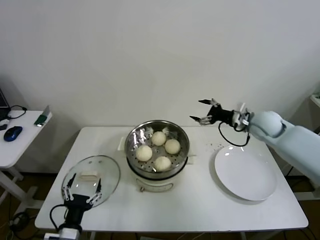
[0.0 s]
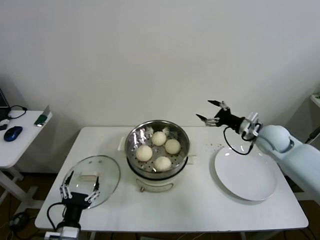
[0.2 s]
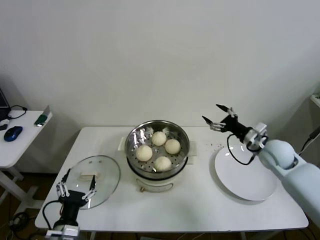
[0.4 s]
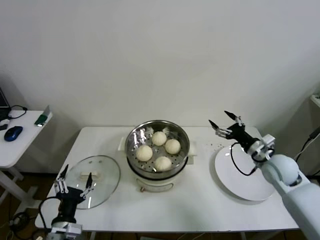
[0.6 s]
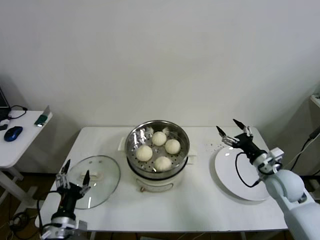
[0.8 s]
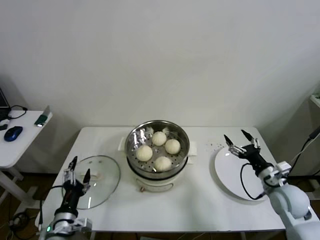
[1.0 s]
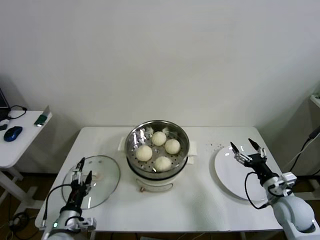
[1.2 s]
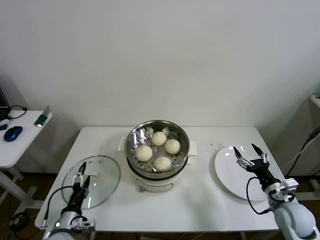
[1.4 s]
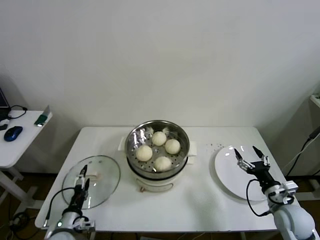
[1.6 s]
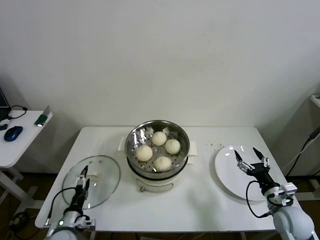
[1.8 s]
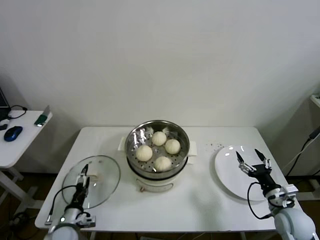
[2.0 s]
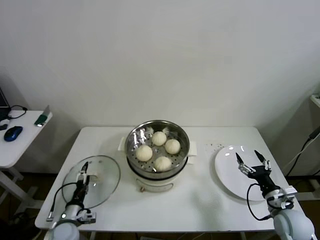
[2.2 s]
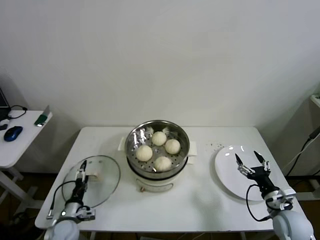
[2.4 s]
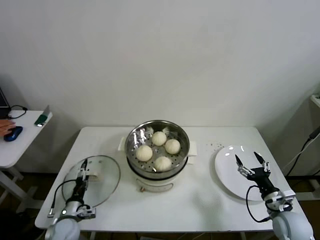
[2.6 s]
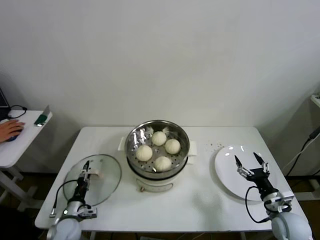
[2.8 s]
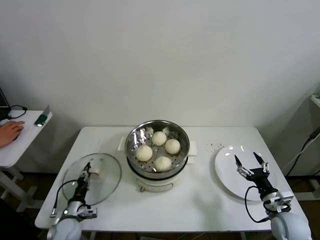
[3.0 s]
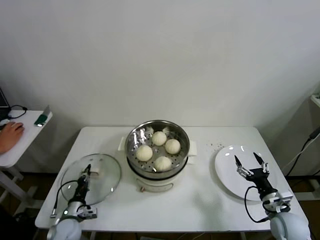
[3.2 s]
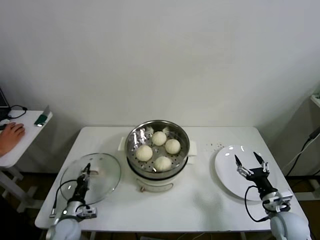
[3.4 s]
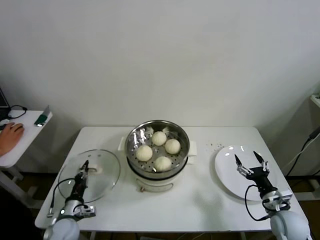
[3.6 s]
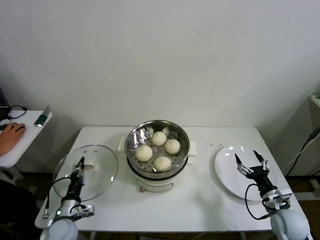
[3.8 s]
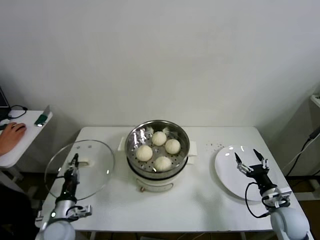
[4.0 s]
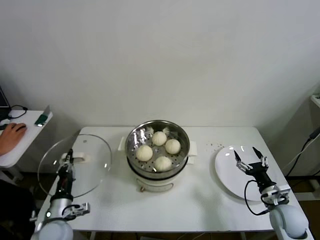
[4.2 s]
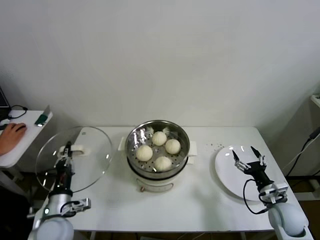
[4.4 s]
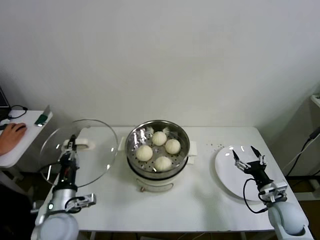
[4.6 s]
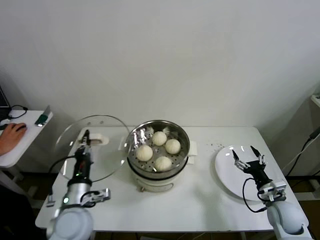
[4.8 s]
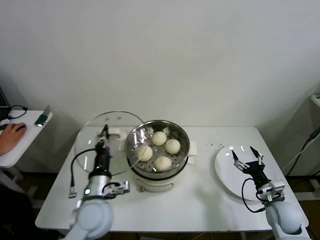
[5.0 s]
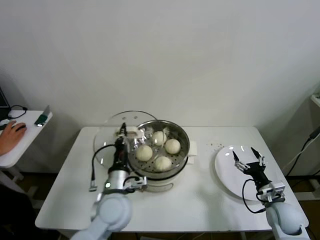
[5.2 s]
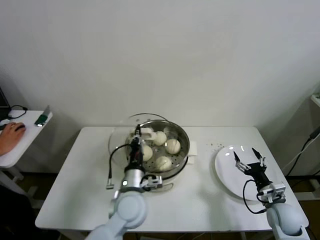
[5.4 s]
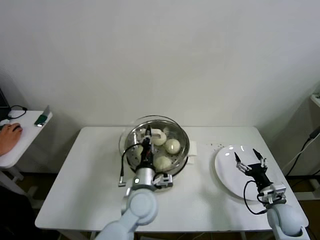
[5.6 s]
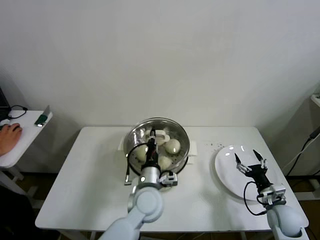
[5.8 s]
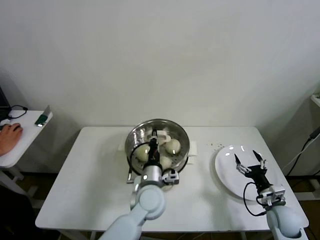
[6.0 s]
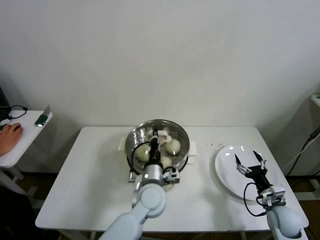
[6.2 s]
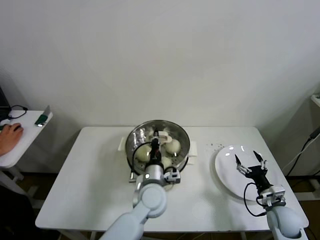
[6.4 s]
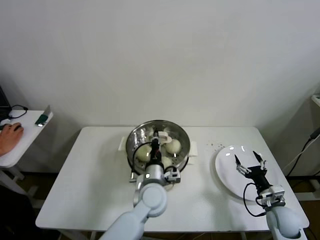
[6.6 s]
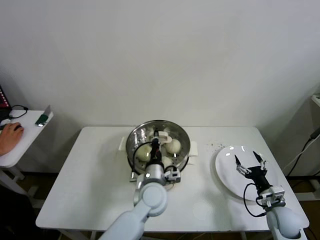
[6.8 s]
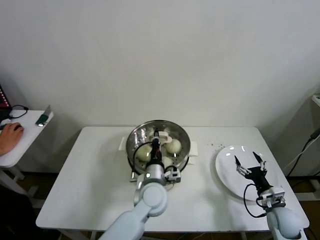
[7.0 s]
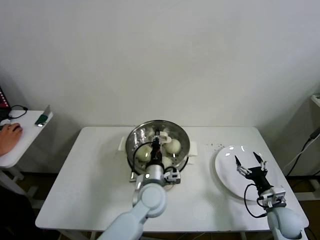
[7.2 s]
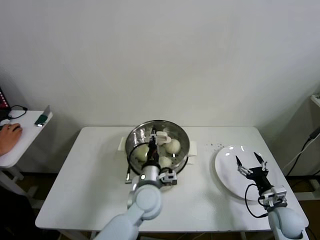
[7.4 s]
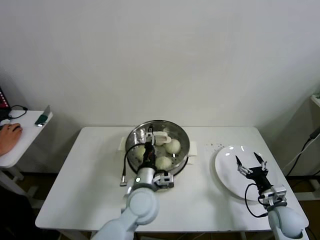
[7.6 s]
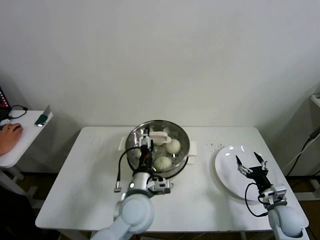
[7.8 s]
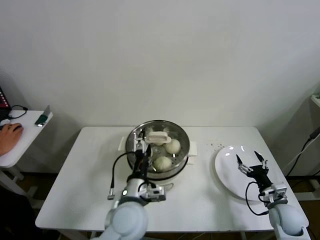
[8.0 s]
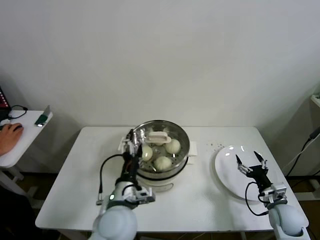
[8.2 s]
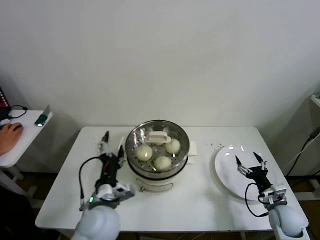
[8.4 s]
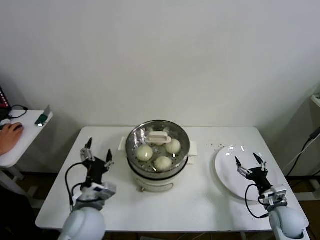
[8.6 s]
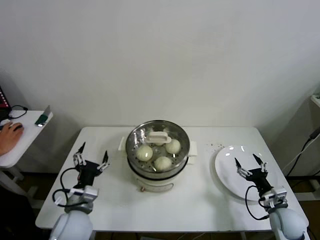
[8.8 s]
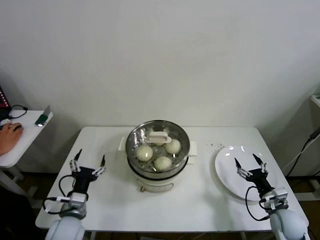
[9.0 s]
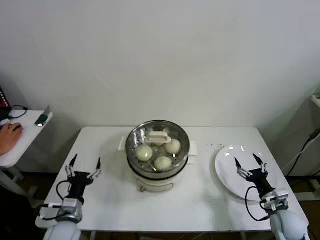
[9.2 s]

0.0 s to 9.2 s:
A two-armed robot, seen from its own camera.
Step, 0.0 to 3.2 s: Grasp the pot lid with left gripper.
Step, 3.4 to 7.8 s: Place the pot lid on the steamer with left gripper.
0.0 to 1.6 s: The left gripper moves forward and downward, some 10 cm, while the right gripper travels backward and downward by some 30 cm.
1.6 to 3.0 s: The left gripper goes about 10 cm downward and forward, and closes.
3.0 to 4.6 s: The left gripper shifts roughly 20 cm upward, and closes its fingers.
4.6 to 6.2 s: The left gripper heads to the right, covering some 25 cm.
6.2 to 7.6 s: The left gripper opens its fingers.
7.6 to 9.2 s: The left gripper goes approximately 25 cm to the left, and opens.

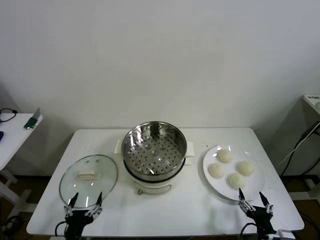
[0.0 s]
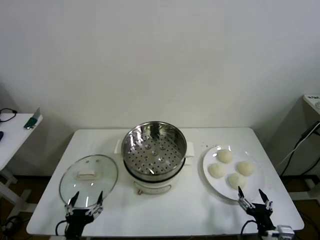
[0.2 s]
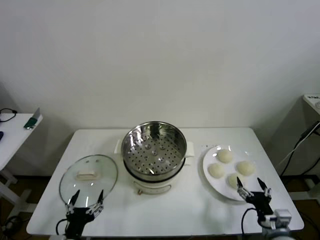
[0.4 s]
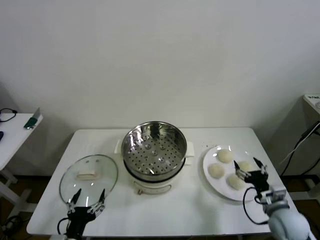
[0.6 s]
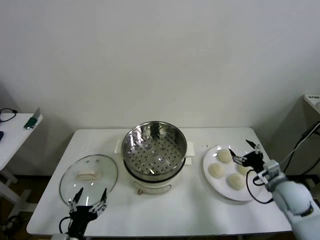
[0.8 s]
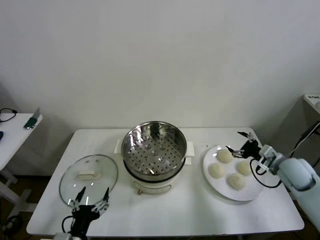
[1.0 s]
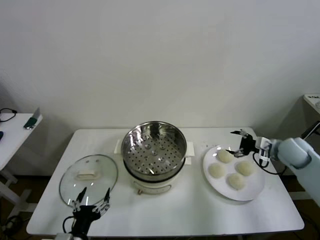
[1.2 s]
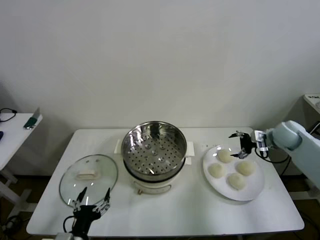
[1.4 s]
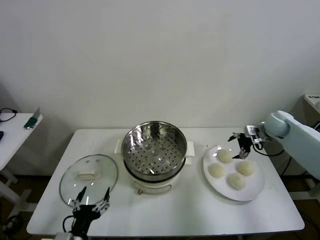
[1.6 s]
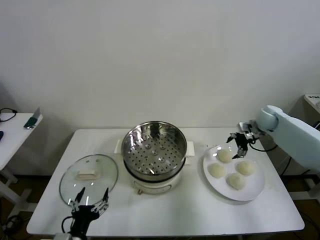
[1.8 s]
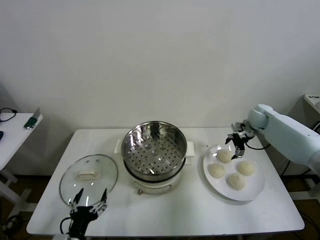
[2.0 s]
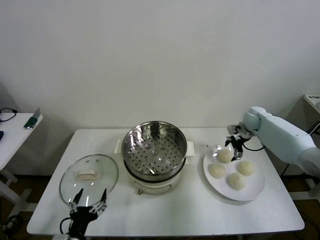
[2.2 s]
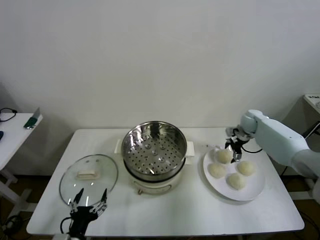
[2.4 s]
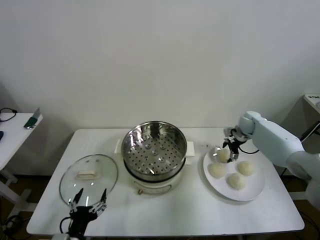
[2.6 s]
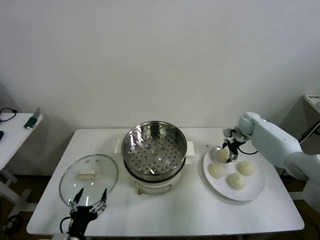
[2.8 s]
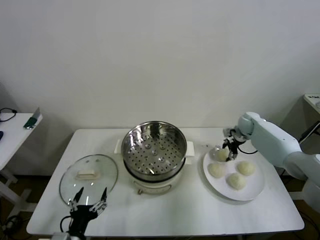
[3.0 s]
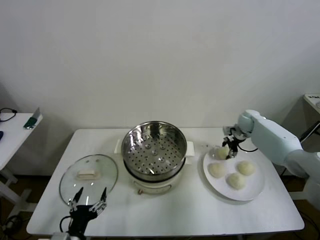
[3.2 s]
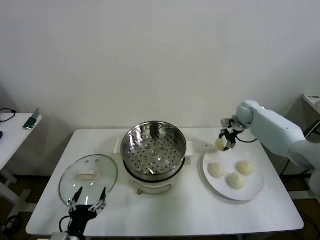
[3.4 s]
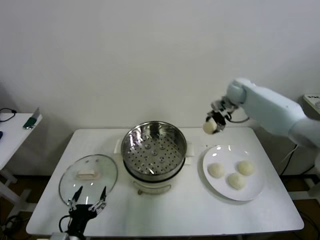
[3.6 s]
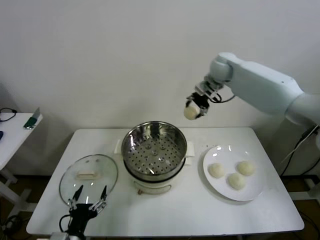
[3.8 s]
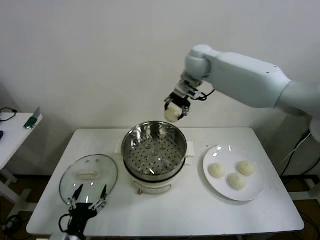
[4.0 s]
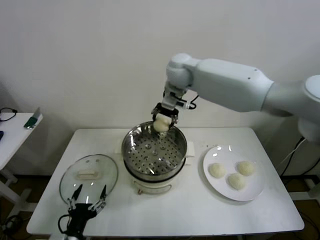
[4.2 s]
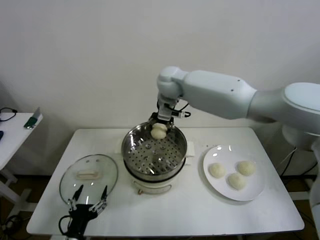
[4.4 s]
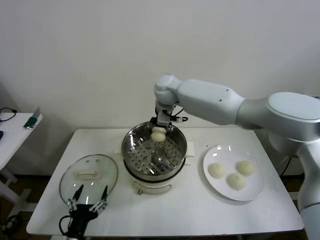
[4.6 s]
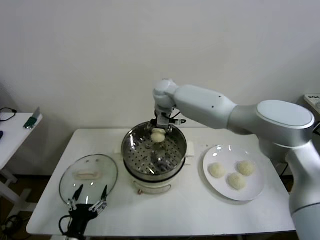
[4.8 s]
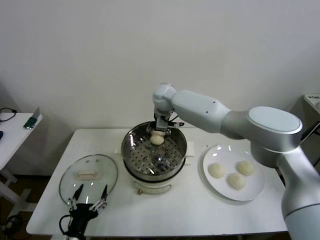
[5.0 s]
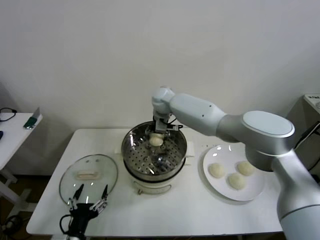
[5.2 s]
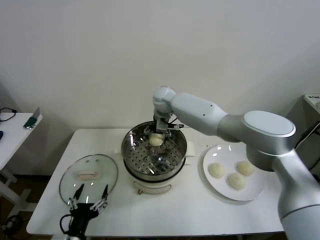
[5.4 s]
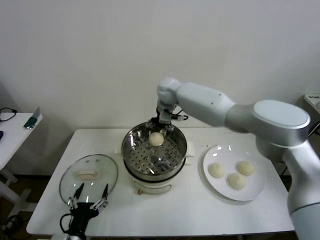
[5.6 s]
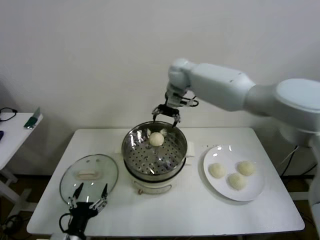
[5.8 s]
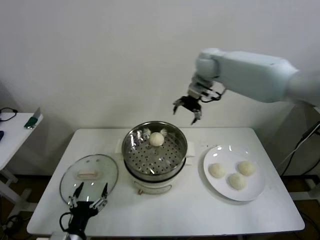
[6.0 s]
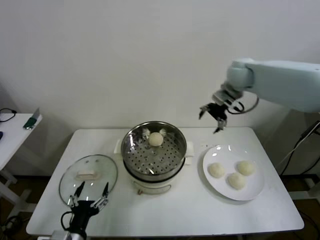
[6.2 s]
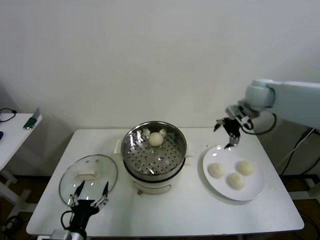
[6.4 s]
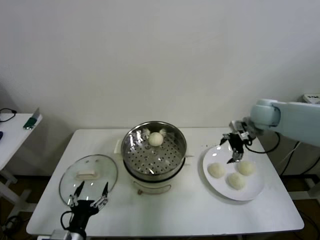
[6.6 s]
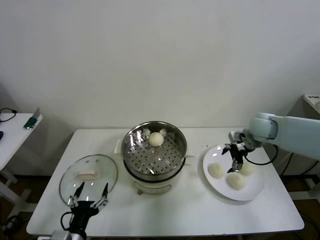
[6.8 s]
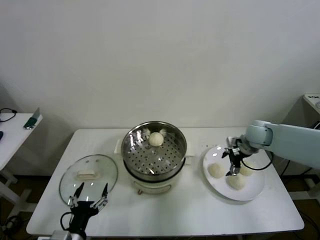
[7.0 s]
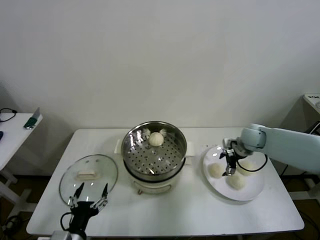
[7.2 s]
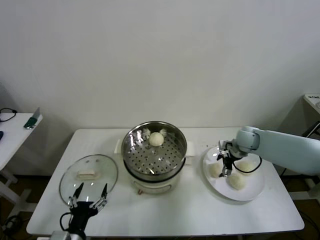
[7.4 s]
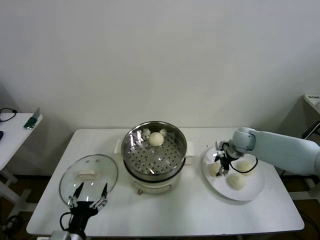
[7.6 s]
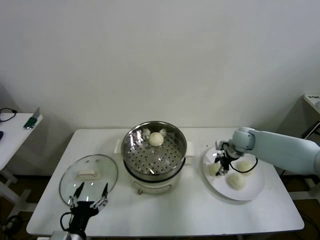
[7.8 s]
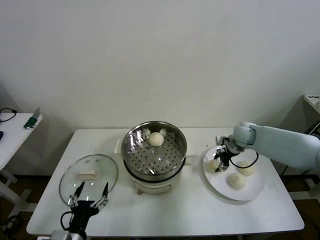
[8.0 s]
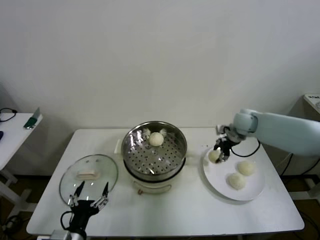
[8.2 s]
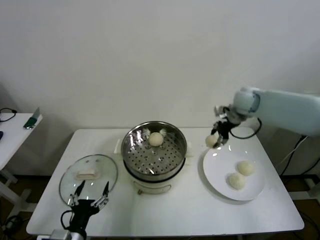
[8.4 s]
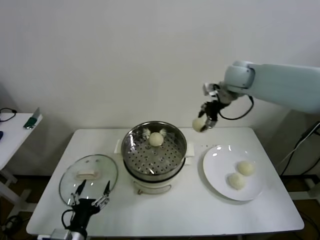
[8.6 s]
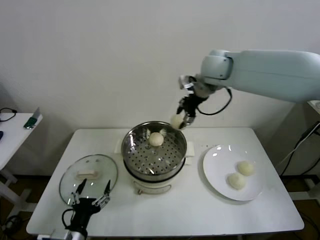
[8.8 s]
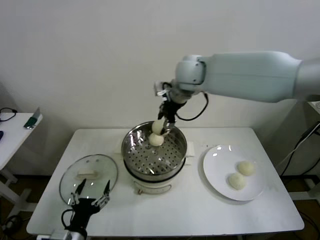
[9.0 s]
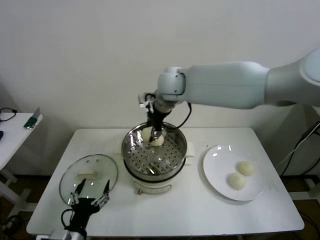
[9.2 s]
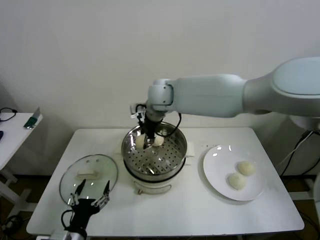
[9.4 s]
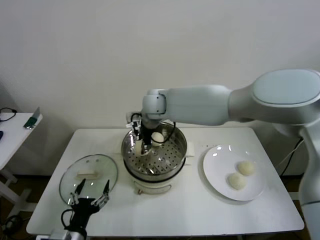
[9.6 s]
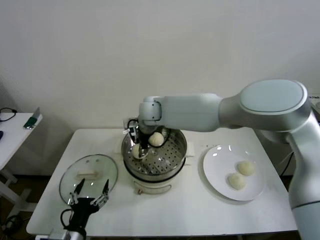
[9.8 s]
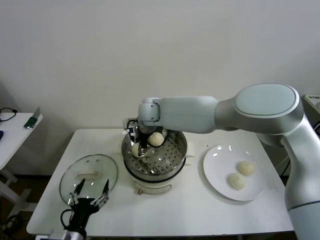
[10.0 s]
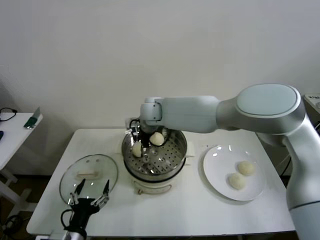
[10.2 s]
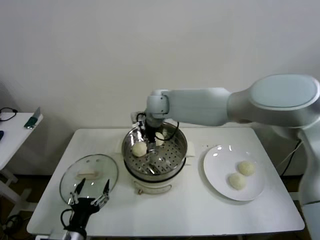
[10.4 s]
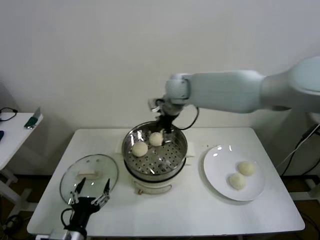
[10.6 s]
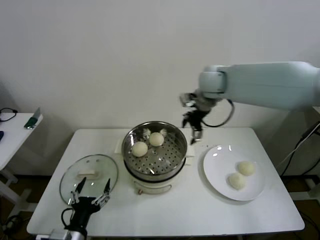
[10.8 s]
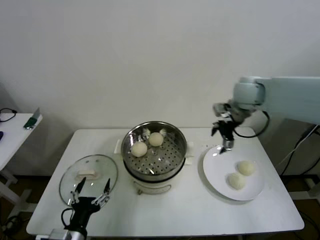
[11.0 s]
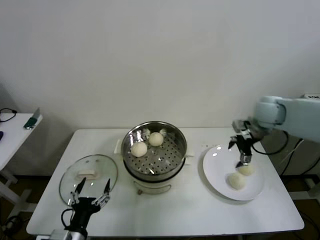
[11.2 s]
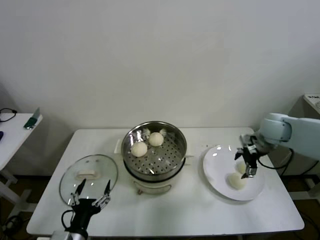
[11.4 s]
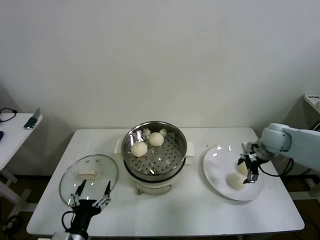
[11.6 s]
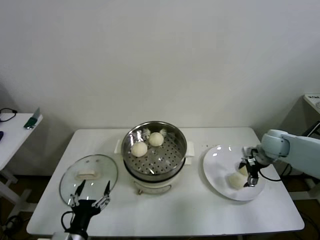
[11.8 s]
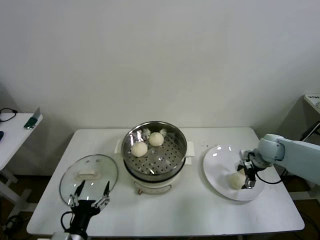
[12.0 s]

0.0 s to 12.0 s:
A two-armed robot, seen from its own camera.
Step, 0.0 to 3.0 s: Grasp the baozi in the plate with right gripper.
Step, 3.2 to 5.2 s: Place the baozi on the steamer with right gripper.
Step, 5.4 to 7.6 s: Grasp the baozi in the plate with right gripper.
Step, 7.8 to 10.2 s: Place the baozi on the steamer with right gripper.
1.6 to 3.0 s: The right gripper moves downward and forward, some 10 cm, and closes up.
3.0 to 4.4 s: The right gripper goes some 40 cm to the left and upward.
4.4 to 6.0 s: The right gripper shifts roughly 20 cm to the right, and opens up.
6.0 to 7.6 s: The right gripper is displaced downward and to the right by some 30 cm, and closes.
7.6 to 9.0 s: The right gripper goes about 40 cm upward and to the left.
9.0 to 10.4 s: The right gripper heads downward, covering roughly 10 cm, and opens its fingers.
10.4 to 12.0 s: The right gripper heads to the right and downward, covering some 40 cm.

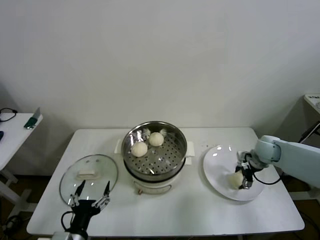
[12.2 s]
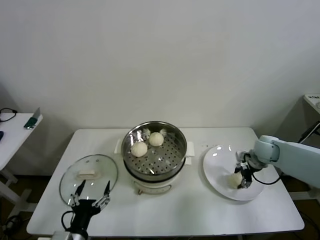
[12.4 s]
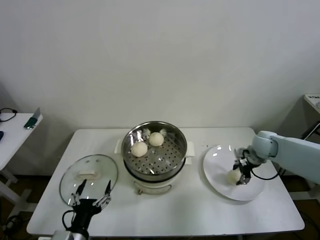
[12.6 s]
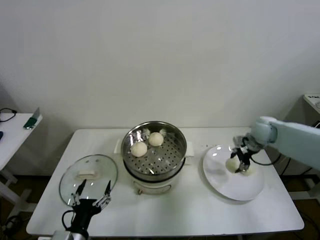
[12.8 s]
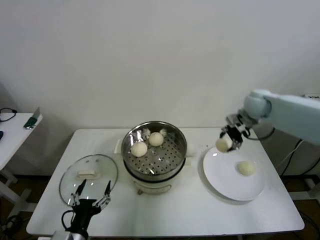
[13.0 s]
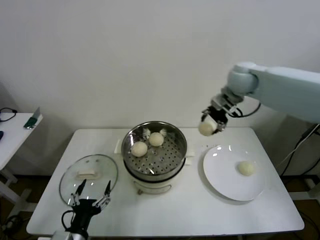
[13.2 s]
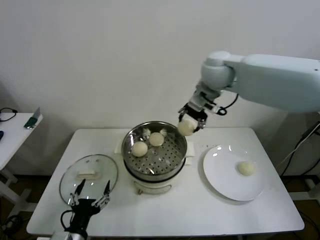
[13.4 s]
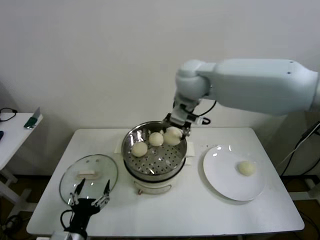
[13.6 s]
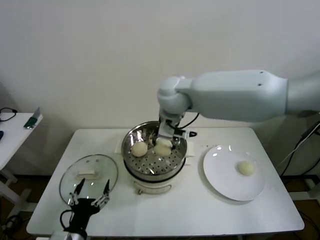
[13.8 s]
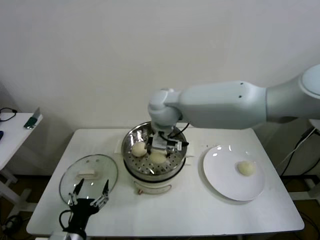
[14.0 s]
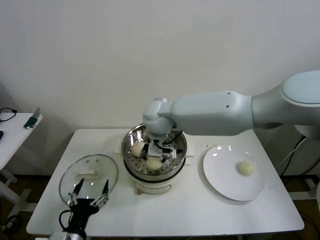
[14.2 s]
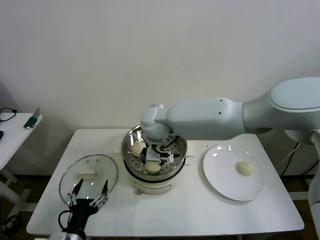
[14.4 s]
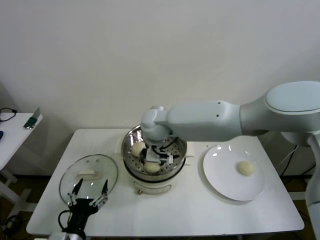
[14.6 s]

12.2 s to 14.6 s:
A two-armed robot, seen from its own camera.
12.2 to 13.4 s: The right gripper goes about 40 cm upward and to the left, and closes up.
13.4 to 14.6 s: The right gripper goes about 20 cm downward and to the left.
